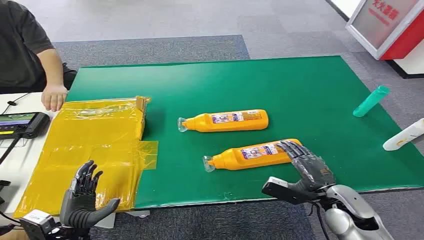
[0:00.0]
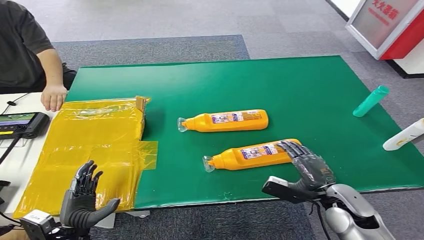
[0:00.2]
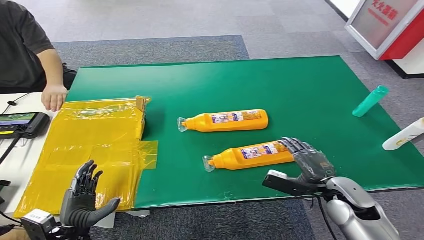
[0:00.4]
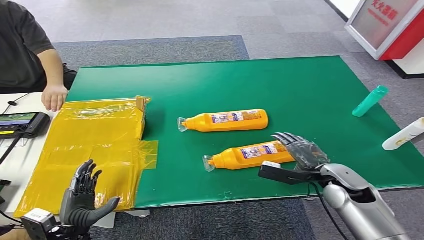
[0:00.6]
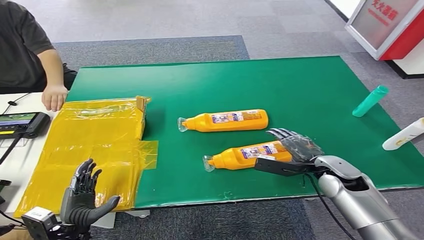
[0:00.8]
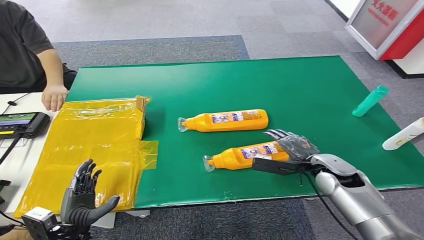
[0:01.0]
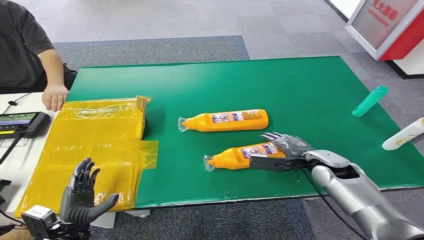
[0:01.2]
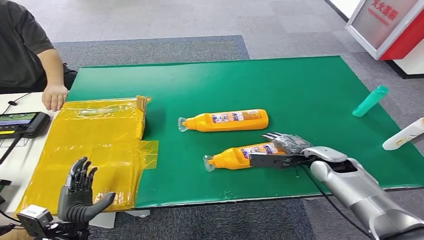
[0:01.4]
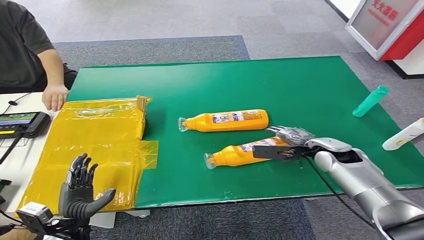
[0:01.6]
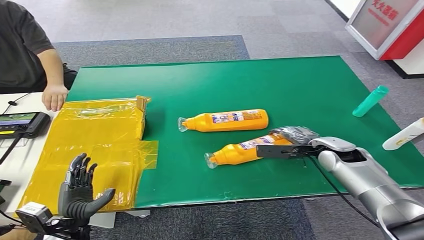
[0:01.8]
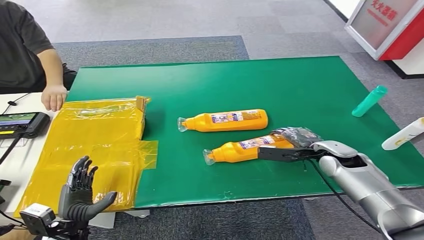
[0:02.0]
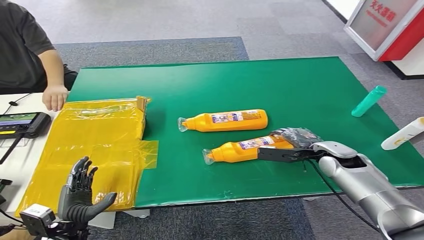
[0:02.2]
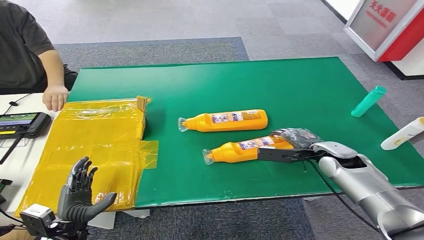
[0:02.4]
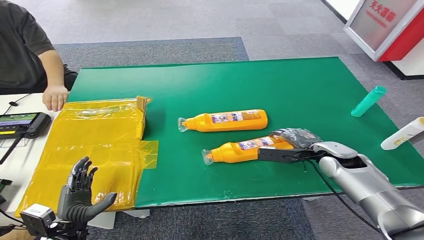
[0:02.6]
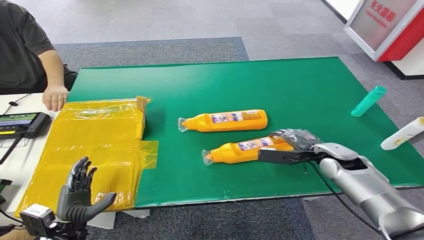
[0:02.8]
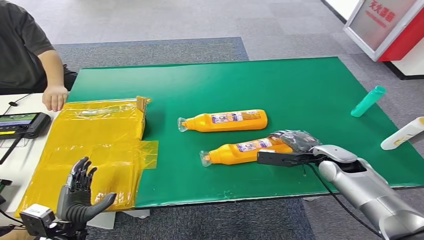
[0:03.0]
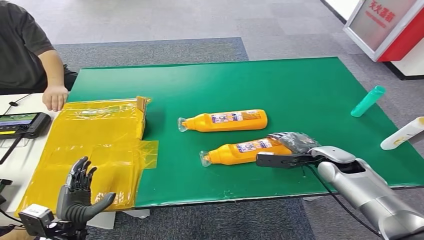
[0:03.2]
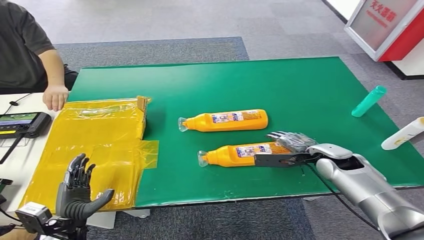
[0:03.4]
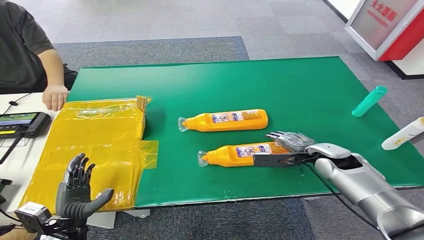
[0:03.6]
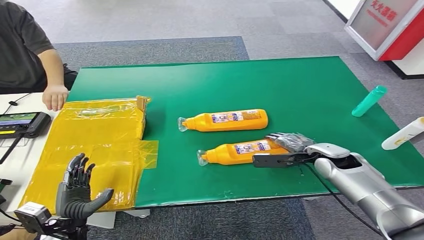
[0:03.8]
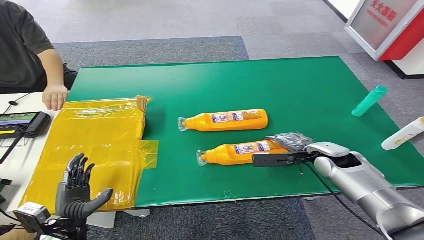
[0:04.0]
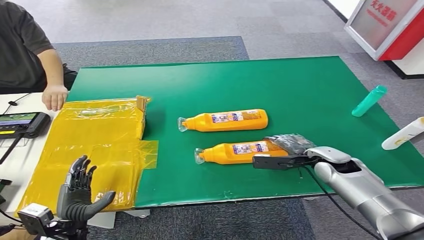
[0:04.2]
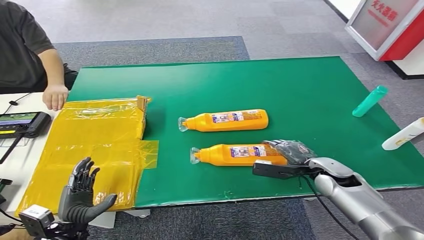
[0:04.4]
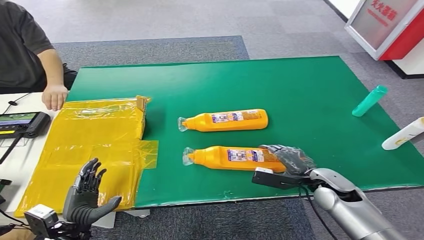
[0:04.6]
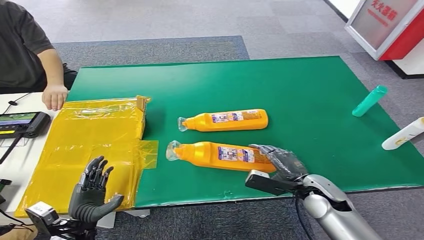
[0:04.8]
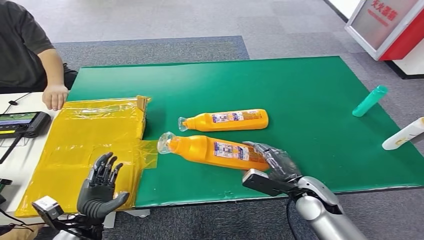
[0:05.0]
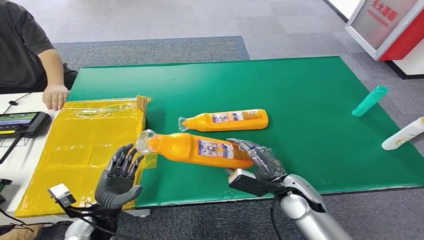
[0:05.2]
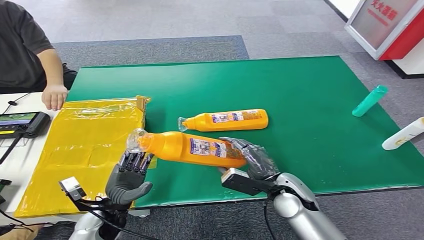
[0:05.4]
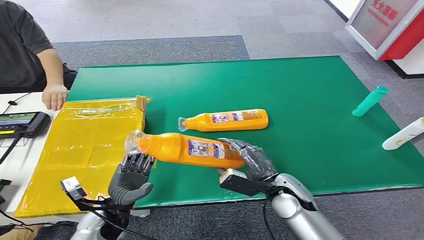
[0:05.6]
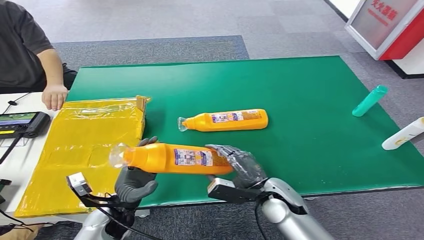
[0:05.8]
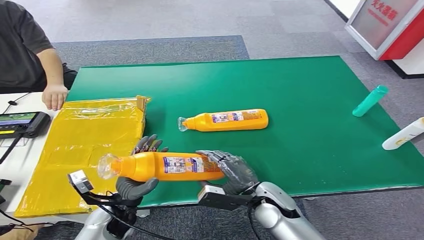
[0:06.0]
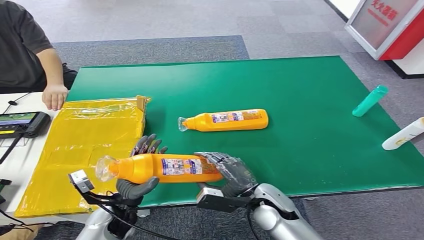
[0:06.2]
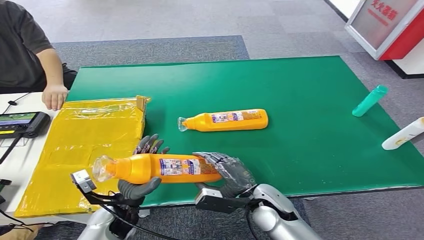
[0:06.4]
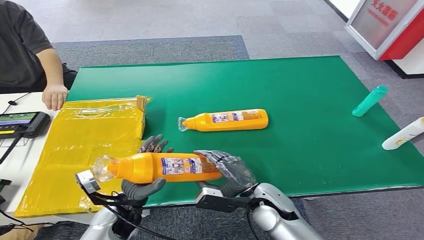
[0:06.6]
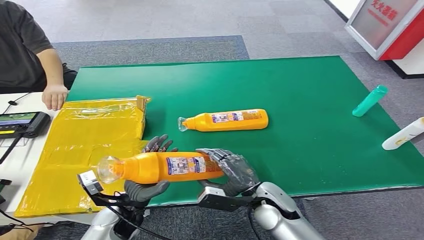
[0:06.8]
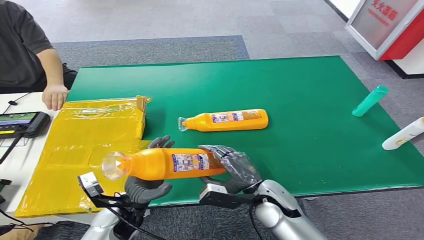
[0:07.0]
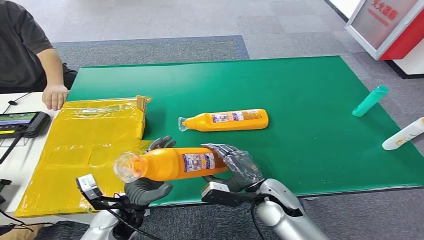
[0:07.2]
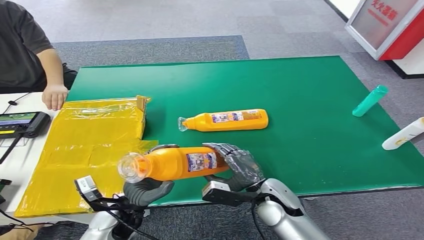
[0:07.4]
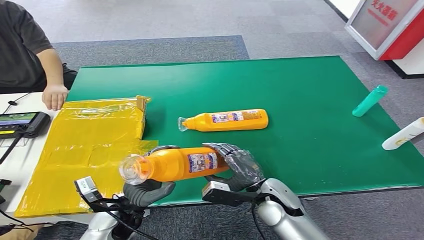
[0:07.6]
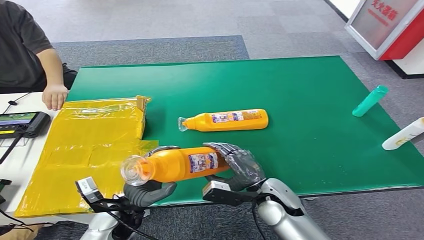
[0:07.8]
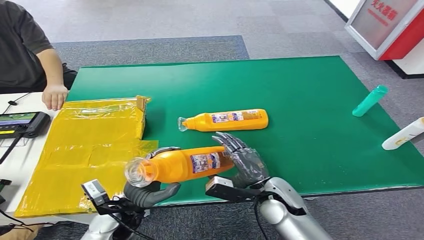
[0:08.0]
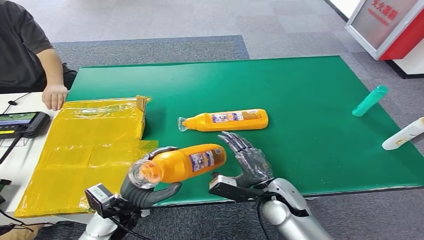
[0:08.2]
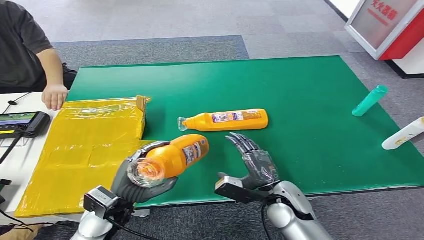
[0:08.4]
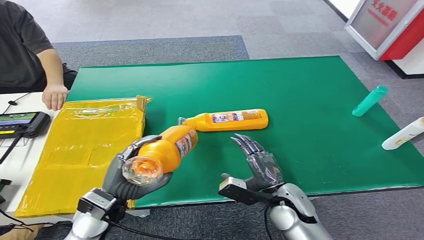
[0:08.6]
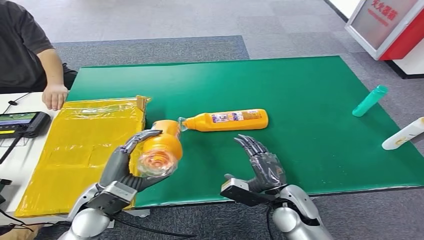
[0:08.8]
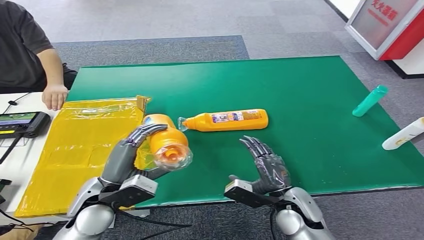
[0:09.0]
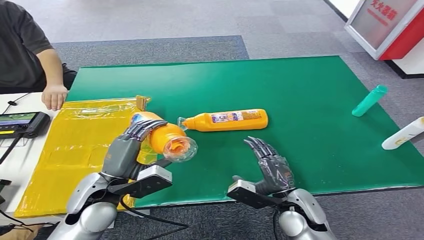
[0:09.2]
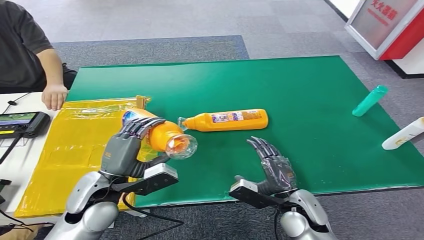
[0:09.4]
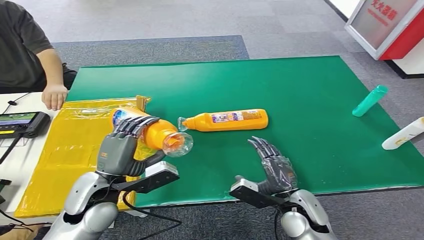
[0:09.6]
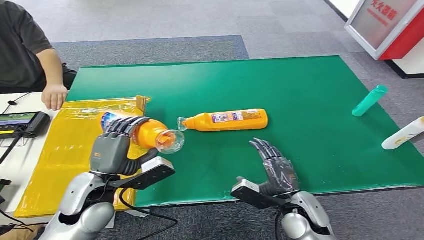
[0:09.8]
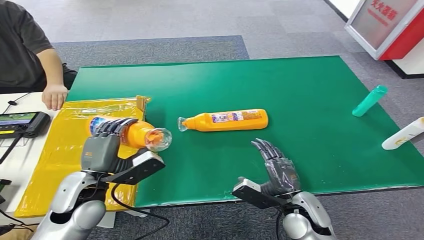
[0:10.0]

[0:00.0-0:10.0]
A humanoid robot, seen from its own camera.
Step, 0:00.0 to 0:05.8: Pick up the bottle from the table.
0:01.4 to 0:04.2: The hands stay close to where they were, moving slightly.
0:04.2 to 0:05.8: The right hand goes some 20 cm to the left and backward. The left hand is displaced to the right and forward by about 10 cm.
0:05.8 to 0:07.2: There are only small adjustments of the hands.
0:07.2 to 0:08.6: The left hand moves some 5 cm.
0:08.6 to 0:10.0: The left hand moves some 5 cm.

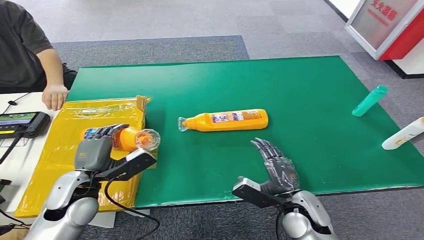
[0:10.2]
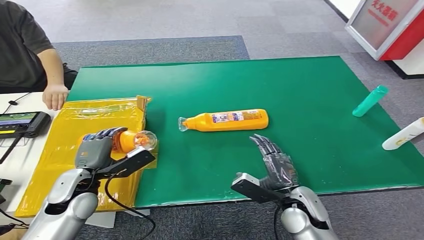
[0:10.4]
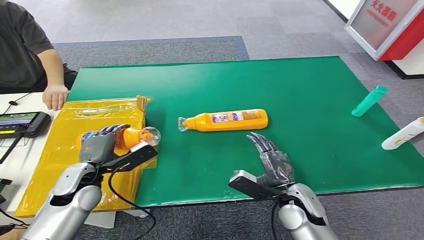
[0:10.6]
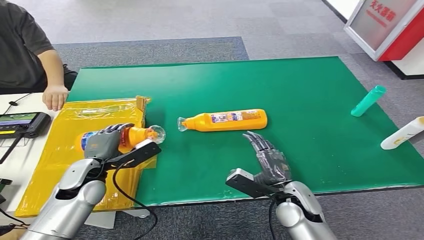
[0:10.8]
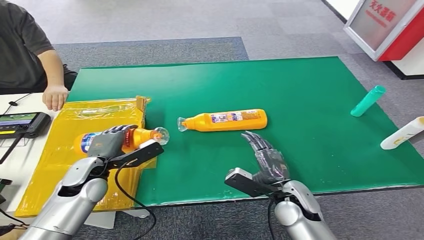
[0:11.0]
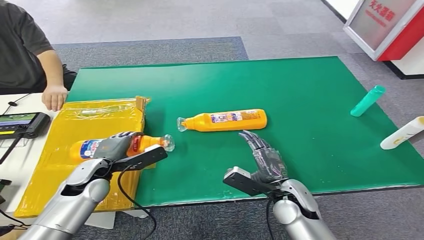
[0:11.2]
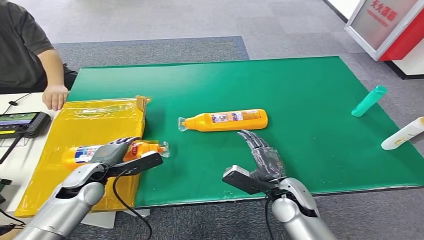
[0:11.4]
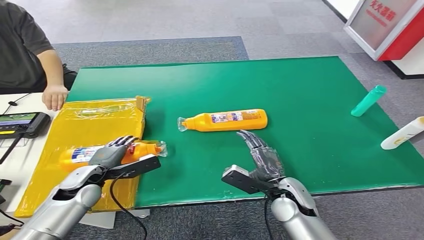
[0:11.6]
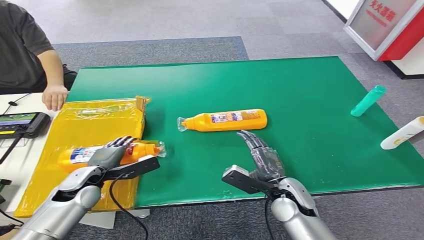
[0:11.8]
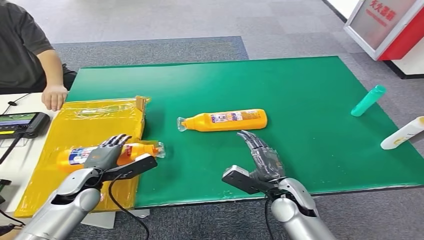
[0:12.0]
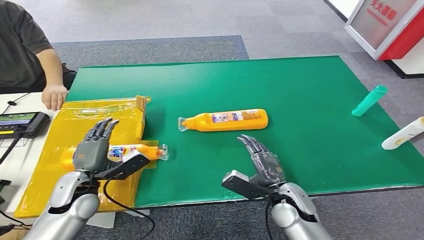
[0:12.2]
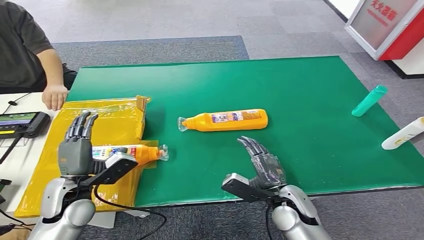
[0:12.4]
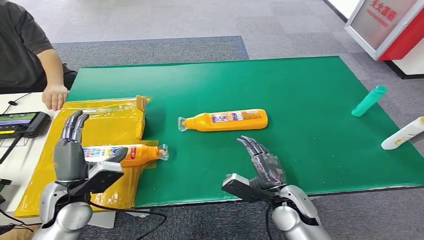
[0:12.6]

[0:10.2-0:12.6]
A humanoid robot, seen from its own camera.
Step, 0:10.2 to 0:12.6: Turn the bottle to the front side.
0:10.2 to 0:11.4: The left hand is displaced downward and forward by some 10 cm.
0:11.4 to 0:12.6: The left hand heads backward and upward, covering some 10 cm.

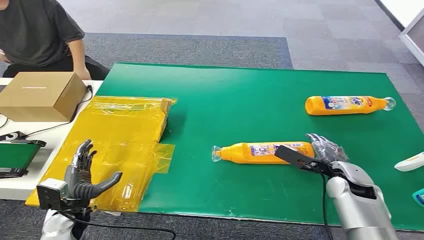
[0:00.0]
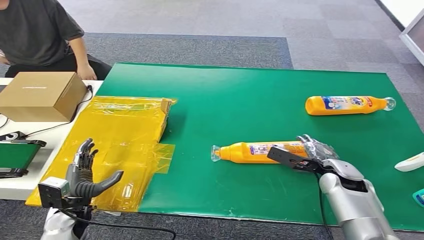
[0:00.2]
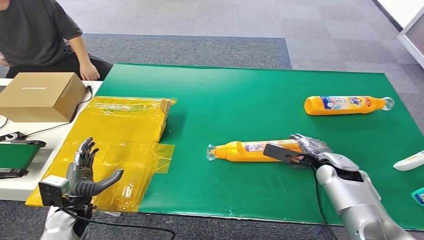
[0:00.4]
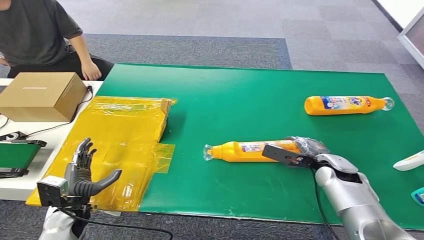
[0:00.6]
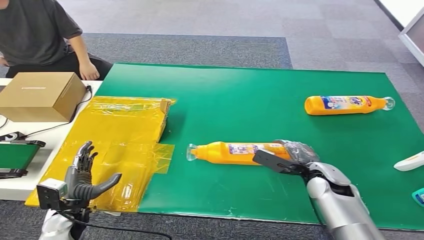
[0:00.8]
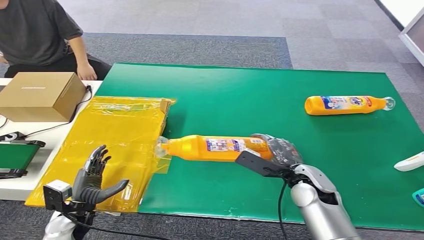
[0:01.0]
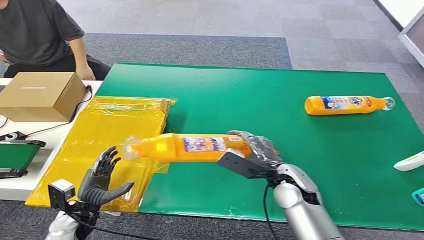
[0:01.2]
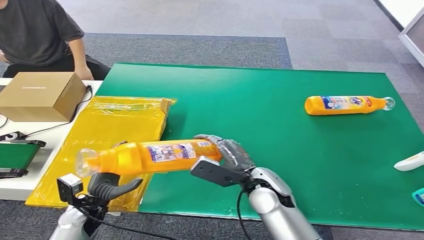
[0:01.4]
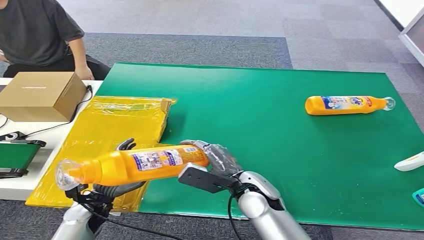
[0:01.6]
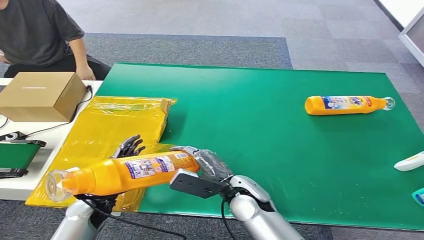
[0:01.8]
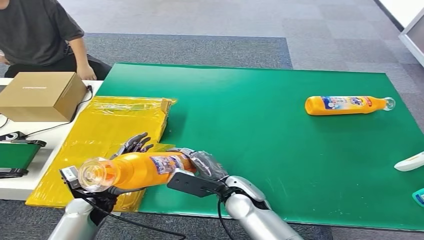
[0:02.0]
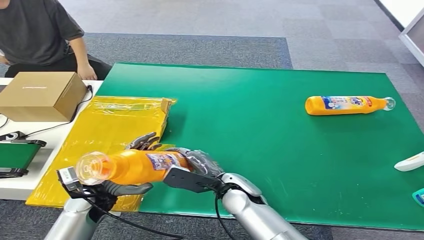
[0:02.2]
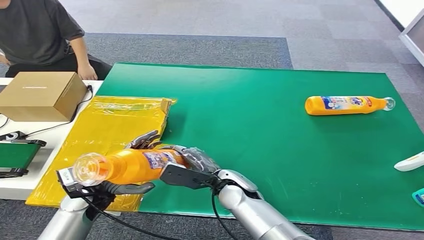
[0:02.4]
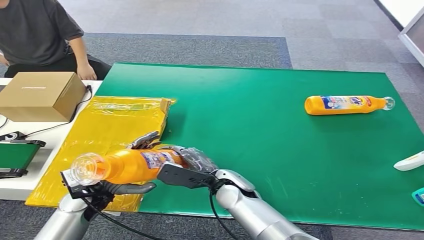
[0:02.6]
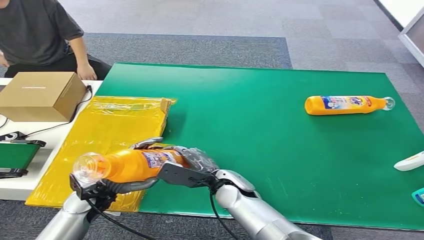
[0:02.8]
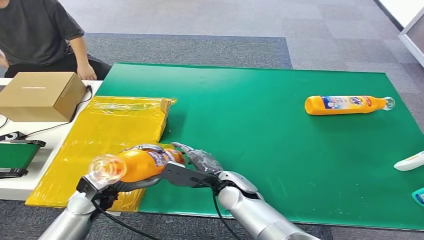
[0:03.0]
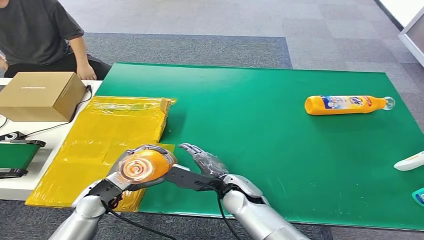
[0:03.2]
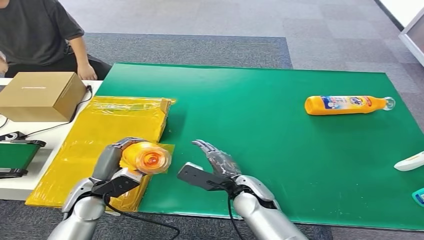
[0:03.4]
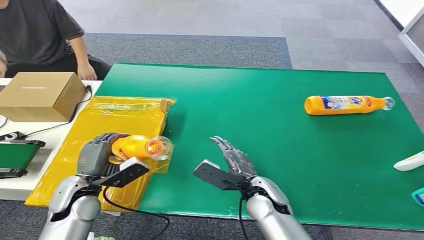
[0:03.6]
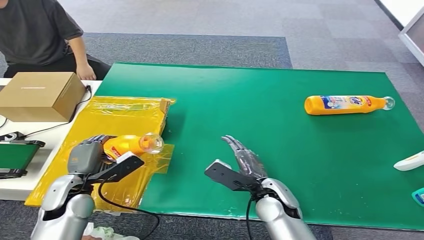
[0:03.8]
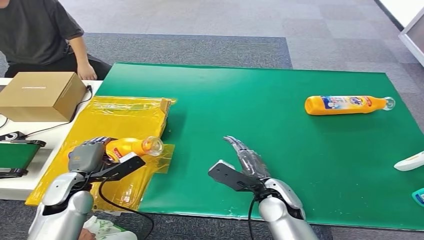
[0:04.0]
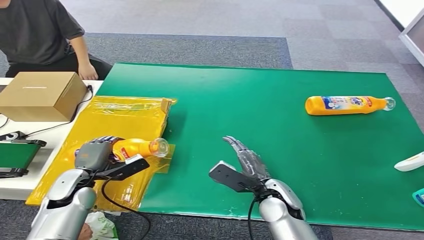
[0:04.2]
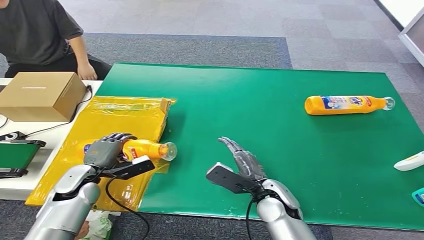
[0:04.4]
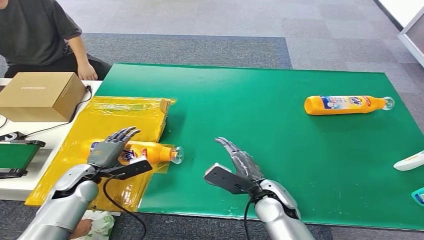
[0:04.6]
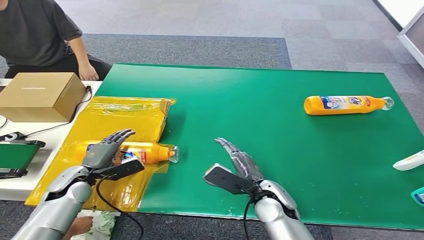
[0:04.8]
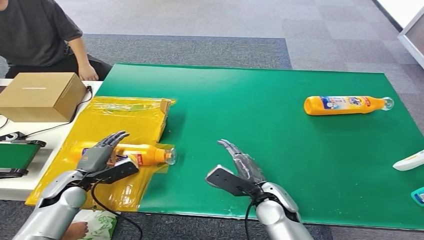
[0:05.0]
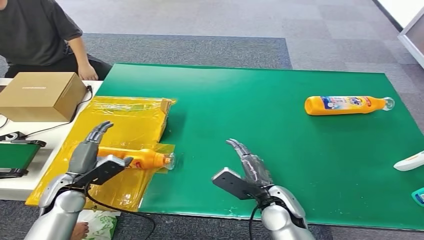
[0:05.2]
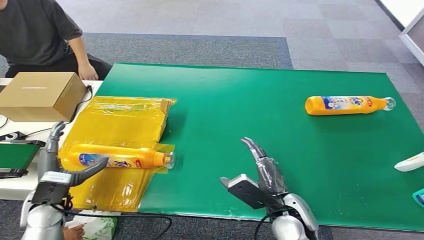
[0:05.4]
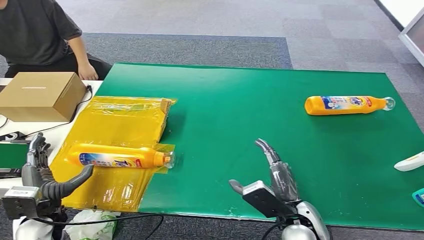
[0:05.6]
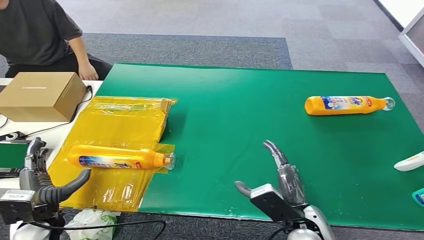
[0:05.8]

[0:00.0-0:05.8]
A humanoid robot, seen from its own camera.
Step, 0:00.0 to 0:01.0: Pick up the bottle from the table.
Step, 0:01.2 to 0:05.8: Turn the bottle to the front side.
0:01.4 to 0:02.8: The right hand goes about 5 cm to the left, while the left hand shifts some 5 cm upward.
0:02.8 to 0:04.4: The right hand is displaced to the right by roughly 10 cm. The left hand is displaced to the left by some 5 cm.
0:04.4 to 0:05.8: The right hand is displaced backward and to the right by approximately 10 cm. Meanwhile the left hand goes approximately 10 cm backward.
